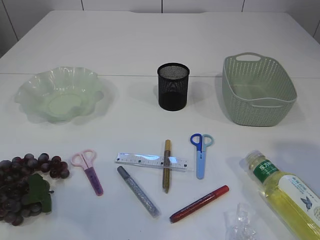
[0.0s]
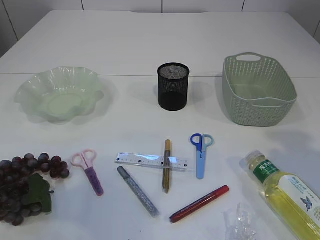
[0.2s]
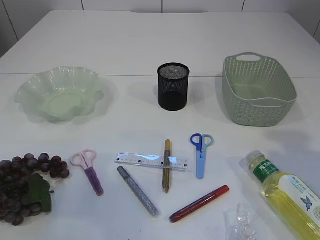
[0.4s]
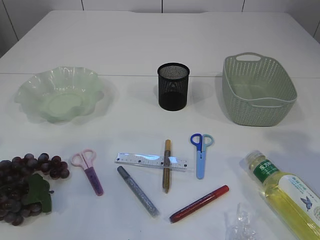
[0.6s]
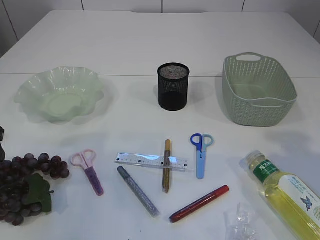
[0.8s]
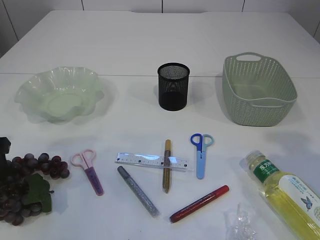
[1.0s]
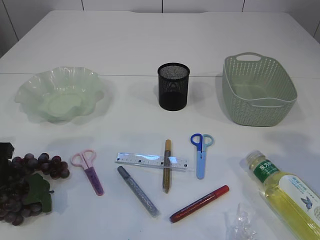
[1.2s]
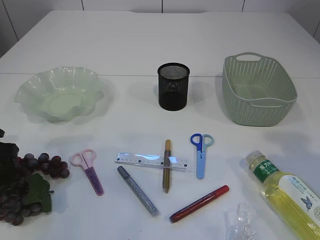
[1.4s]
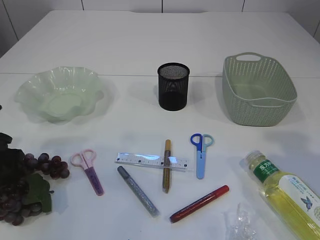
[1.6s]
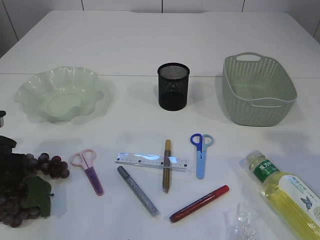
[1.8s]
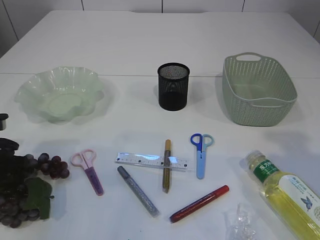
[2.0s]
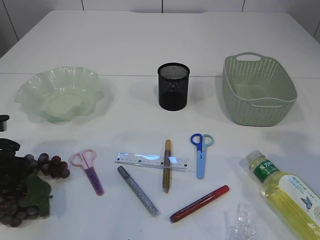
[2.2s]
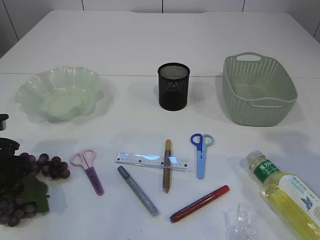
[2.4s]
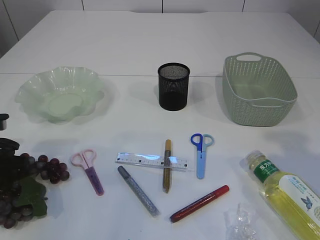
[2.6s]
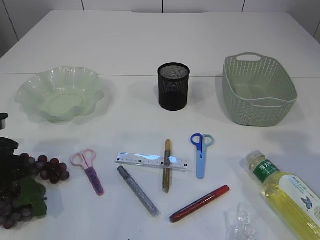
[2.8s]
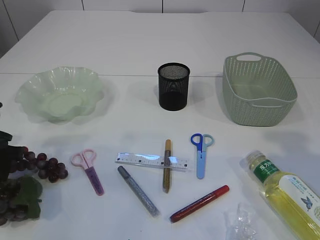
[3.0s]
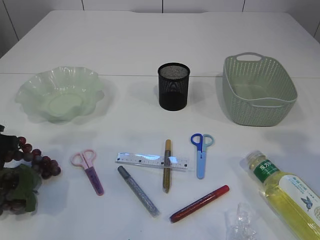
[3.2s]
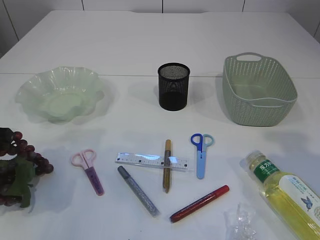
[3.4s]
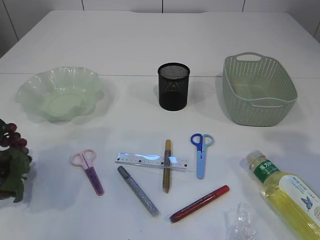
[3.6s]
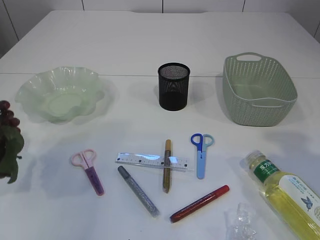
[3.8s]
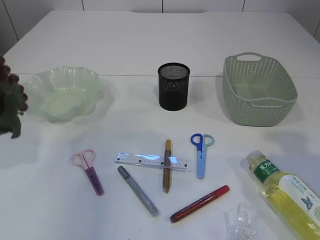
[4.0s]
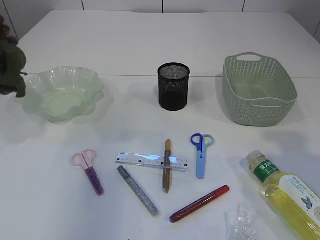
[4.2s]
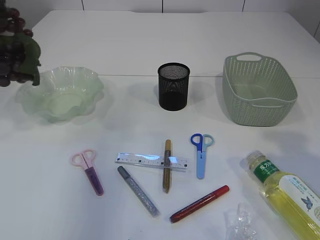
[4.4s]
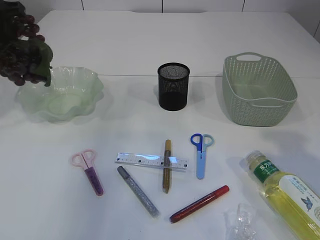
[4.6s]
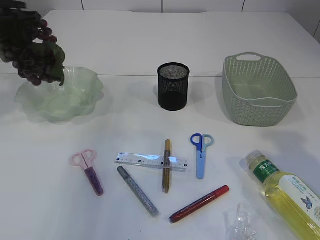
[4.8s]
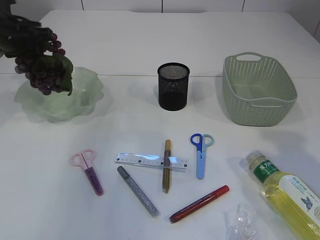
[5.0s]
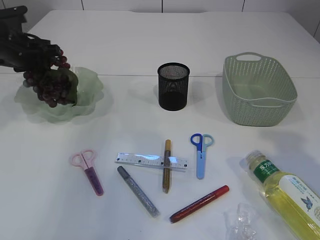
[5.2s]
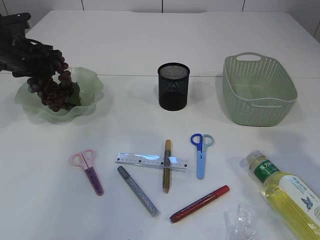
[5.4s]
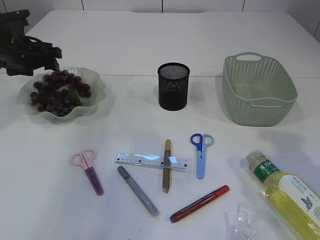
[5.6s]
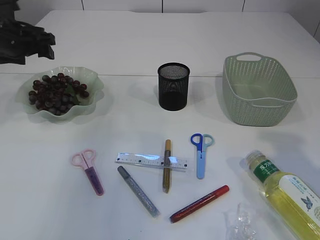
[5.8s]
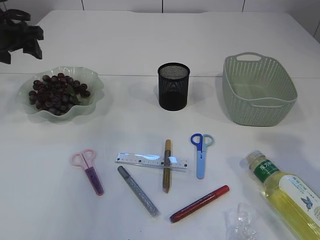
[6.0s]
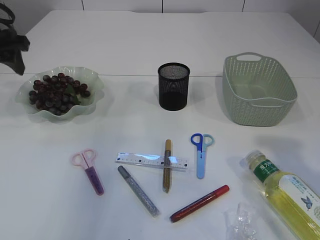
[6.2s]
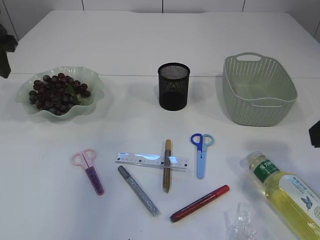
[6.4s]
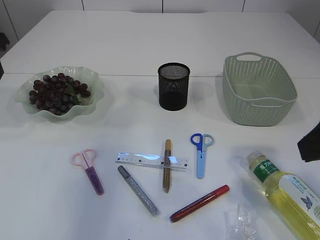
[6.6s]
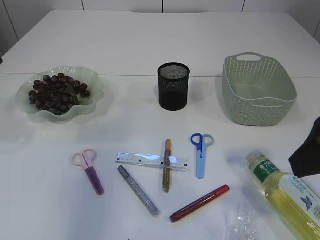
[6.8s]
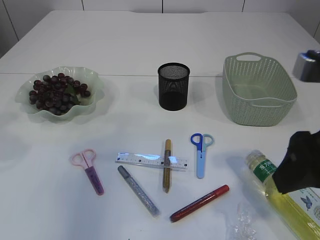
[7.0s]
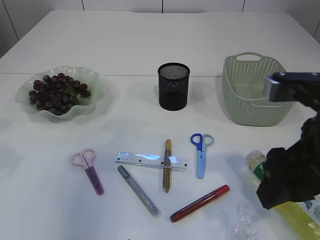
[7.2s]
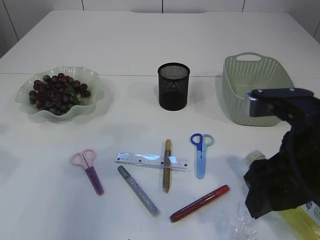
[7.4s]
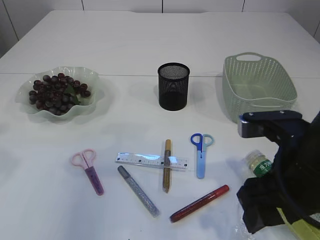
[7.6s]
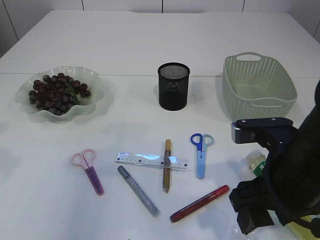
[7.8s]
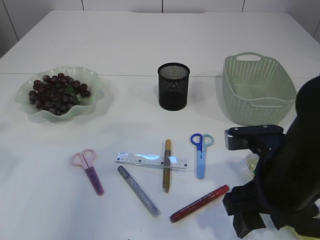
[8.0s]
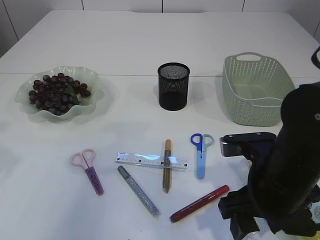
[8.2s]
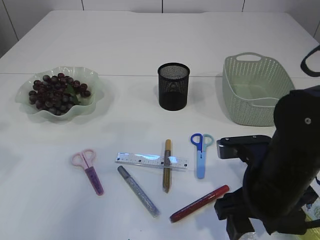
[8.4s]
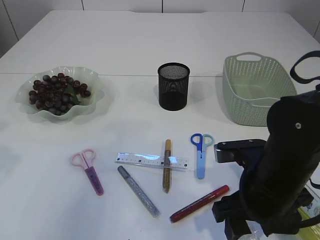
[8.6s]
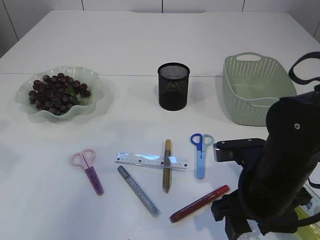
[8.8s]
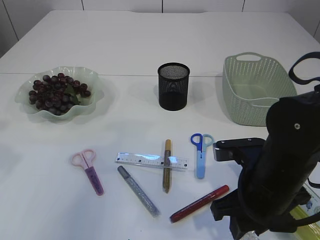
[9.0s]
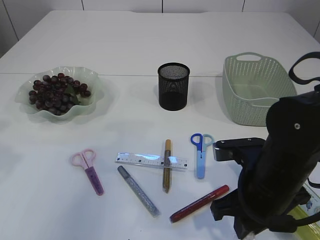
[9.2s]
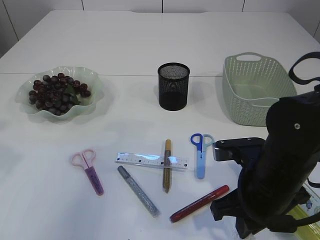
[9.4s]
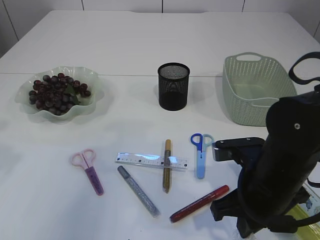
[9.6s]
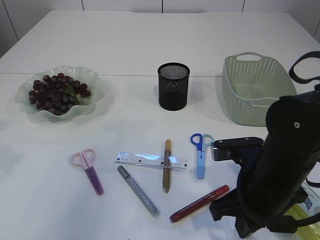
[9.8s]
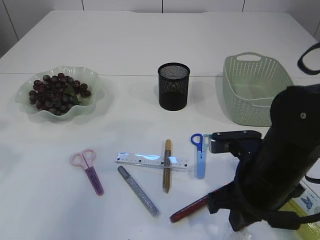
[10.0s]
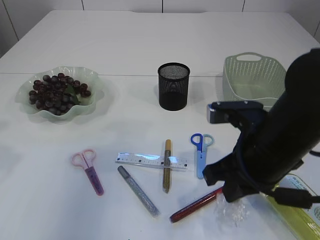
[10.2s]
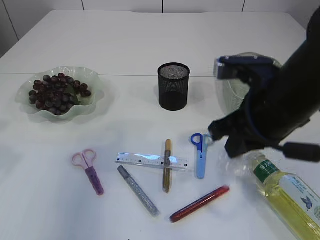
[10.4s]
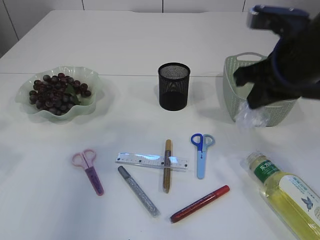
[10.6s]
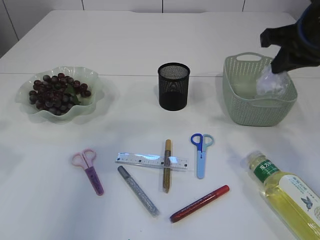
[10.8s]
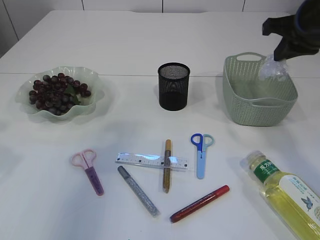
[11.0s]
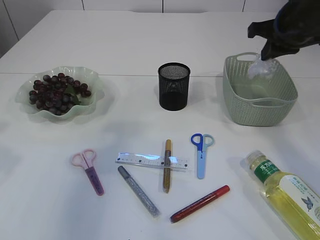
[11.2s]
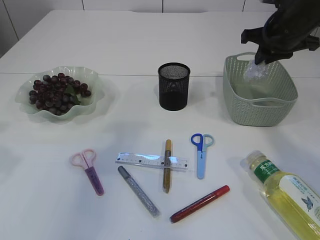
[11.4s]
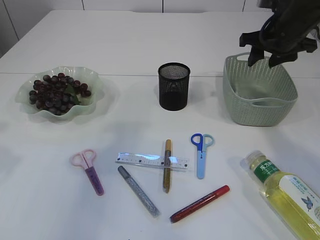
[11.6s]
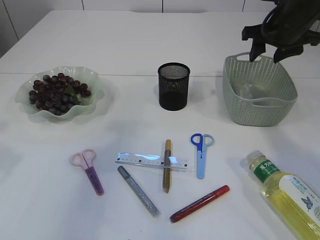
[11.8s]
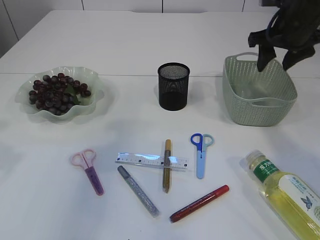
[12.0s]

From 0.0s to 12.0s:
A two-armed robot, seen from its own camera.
Step, from 0.0s to 3.6s: Pick up the grapes.
Step, from 3.8s to 5.8s: Place the grapes in the plate.
Step, from 6.0s to 10.2s: Pick up the plastic.
From 0.0s to 1.6s: The left gripper moves forward and downward, about 20 cm.
From 1.6s to 3.0s: The left gripper closes its fingers.
From 3.0s to 4.4s: The left gripper goes approximately 20 cm upward.
From 4.4s to 6.0s: The left gripper moves forward and downward, roughly 10 cm, and opens its fingers.
From 6.0s to 7.6s: The right gripper moves to the left and downward, some 15 cm. The left gripper moves backward, roughly 20 cm, and closes up.
From 7.6s to 9.0s: The right gripper goes about 10 cm downward.
From 9.0s to 10.4s: The right gripper is displaced upward by roughly 10 cm, and closes.
From 10.4s to 12.0s: The right gripper goes about 20 cm forward and to the right, and opens its fingers.

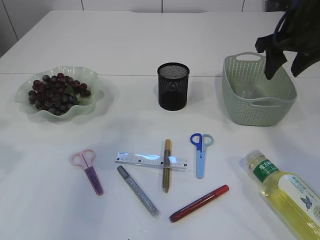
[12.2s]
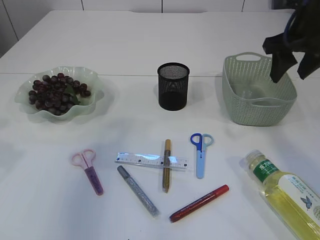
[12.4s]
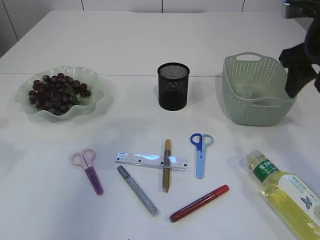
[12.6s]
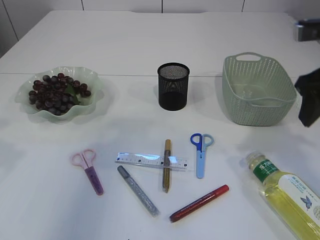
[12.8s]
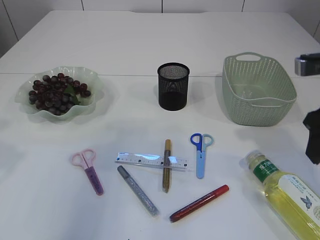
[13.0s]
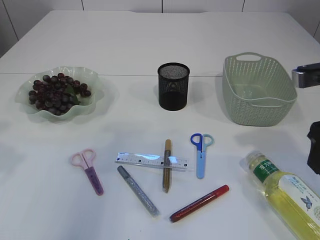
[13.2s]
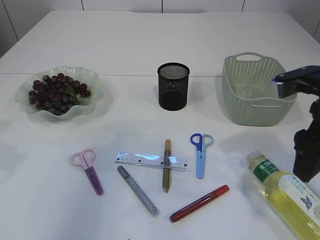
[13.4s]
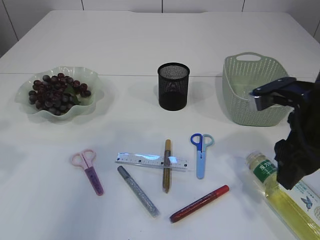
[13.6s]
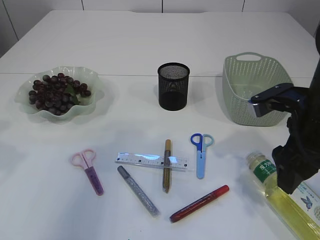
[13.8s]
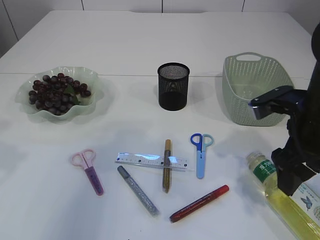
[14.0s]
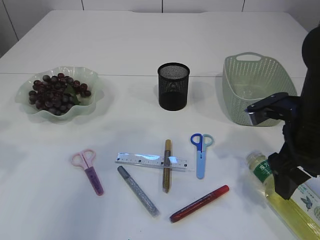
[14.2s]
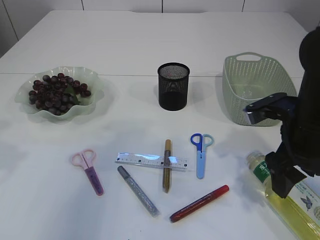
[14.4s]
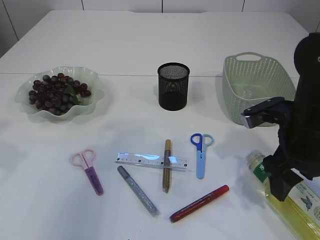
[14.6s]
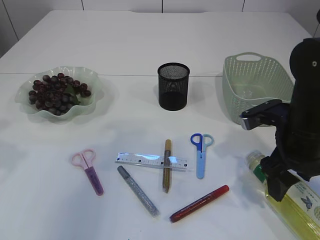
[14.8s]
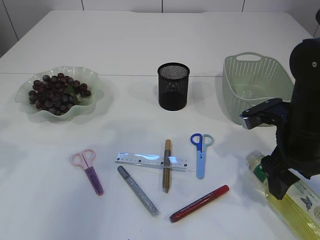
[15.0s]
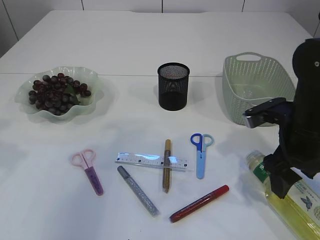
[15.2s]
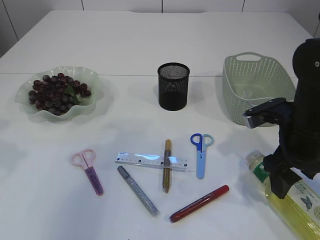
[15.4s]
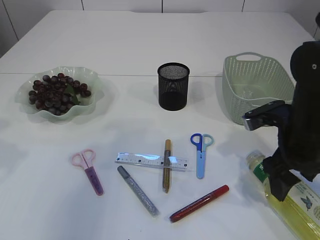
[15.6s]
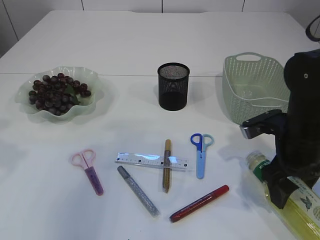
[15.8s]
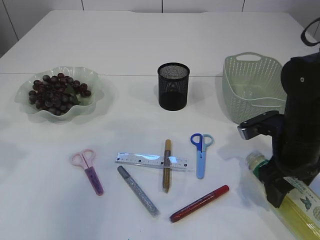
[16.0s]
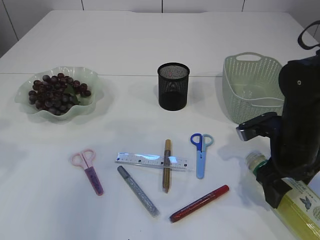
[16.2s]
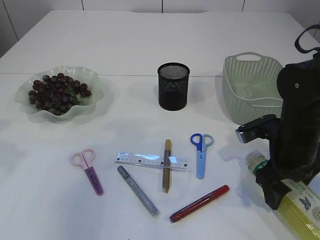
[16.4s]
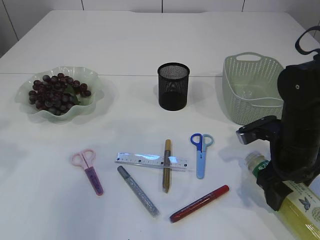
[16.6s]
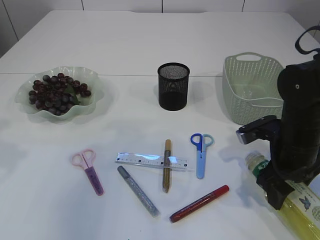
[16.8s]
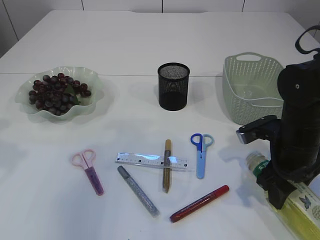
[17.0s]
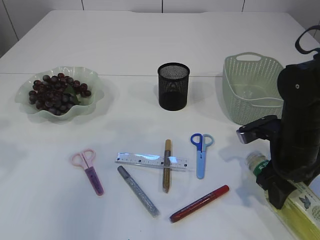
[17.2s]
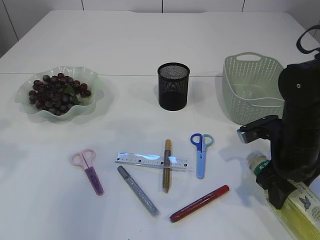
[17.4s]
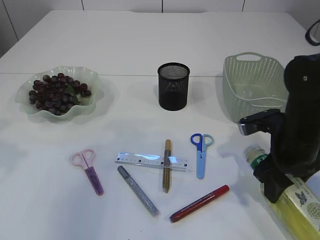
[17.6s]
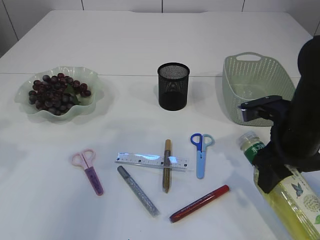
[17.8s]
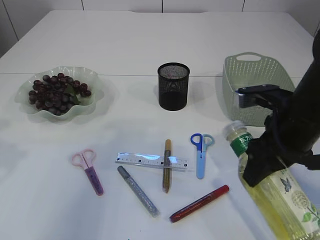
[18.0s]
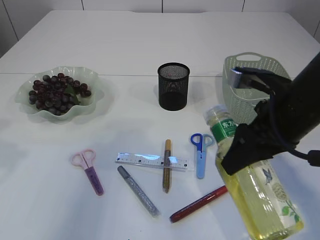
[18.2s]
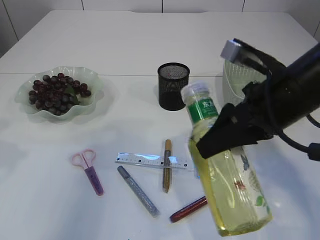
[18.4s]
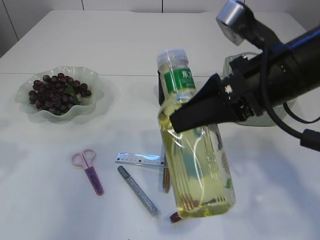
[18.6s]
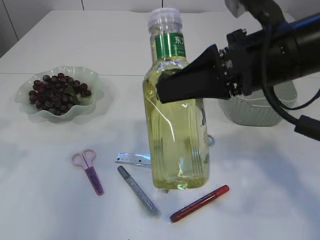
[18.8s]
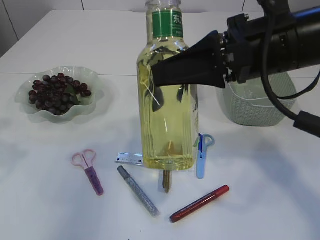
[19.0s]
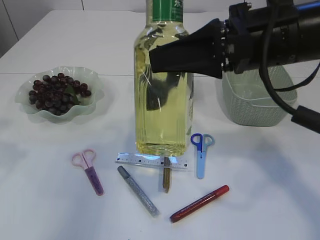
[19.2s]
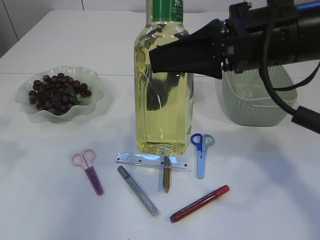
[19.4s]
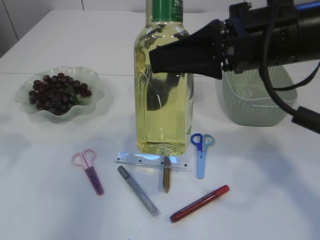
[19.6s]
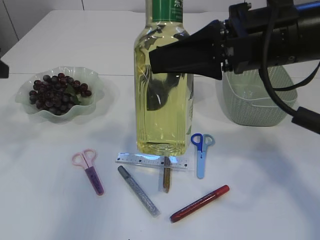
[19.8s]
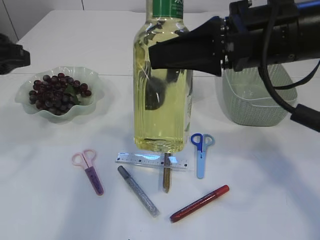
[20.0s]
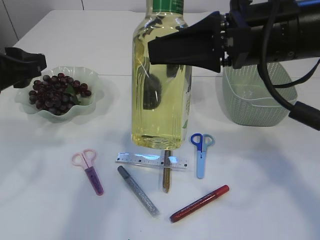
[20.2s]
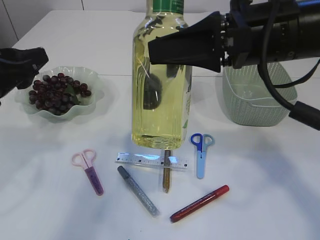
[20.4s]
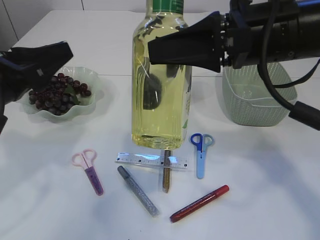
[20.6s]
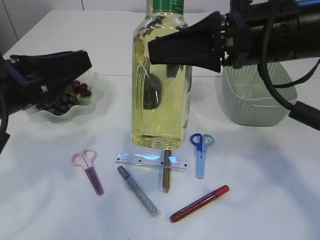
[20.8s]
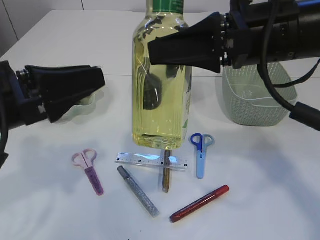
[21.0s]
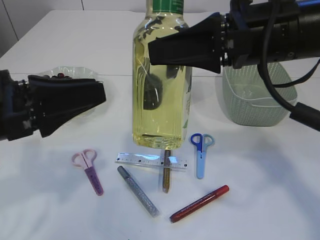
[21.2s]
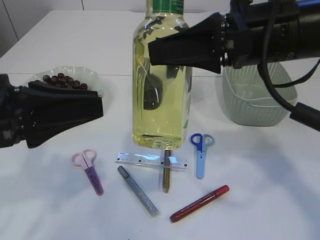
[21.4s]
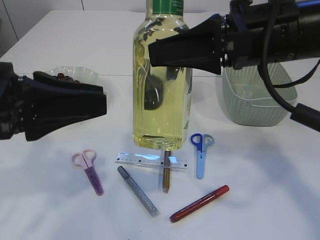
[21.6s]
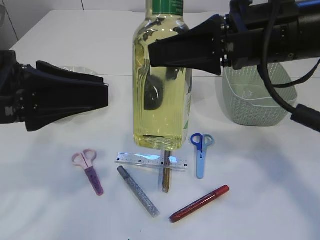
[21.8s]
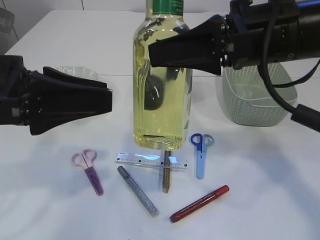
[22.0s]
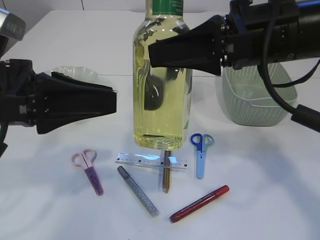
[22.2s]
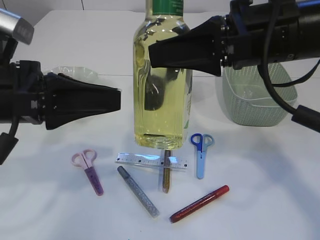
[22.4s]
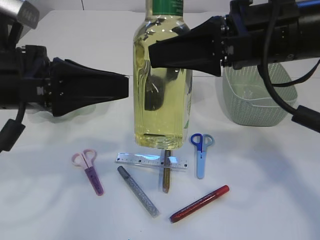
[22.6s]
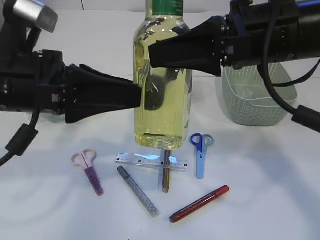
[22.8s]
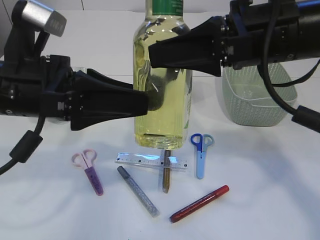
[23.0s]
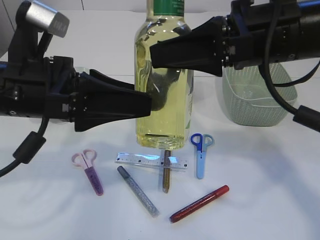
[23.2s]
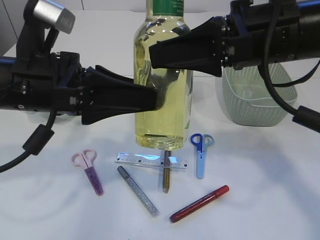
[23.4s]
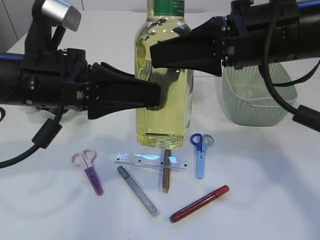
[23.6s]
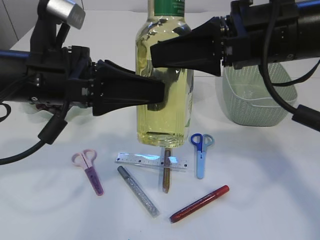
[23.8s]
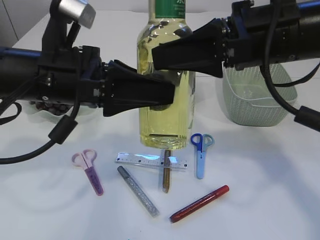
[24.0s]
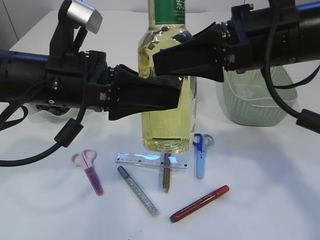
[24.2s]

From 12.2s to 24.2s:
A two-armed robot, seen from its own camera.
Step, from 12.4s to 18.2s: Pick up the bottle with the right arm.
From 12.2s to 13.8s: The right gripper moves backward and downward, some 15 cm.
From 13.8s to 15.2s: The grippers move only a little.
From 15.2s to 16.6s: The grippers make only small movements.
From 16.6s to 18.2s: The right gripper is displaced upward by approximately 10 cm.
From 18.2s to 19.8s: The right gripper moves upward, some 10 cm.
From 19.8s to 21.2s: The left gripper goes about 10 cm to the right and backward.
From 21.2s to 22.6s: The left gripper opens its fingers.
From 22.6s to 24.2s: The left gripper is displaced to the right by about 5 cm.
